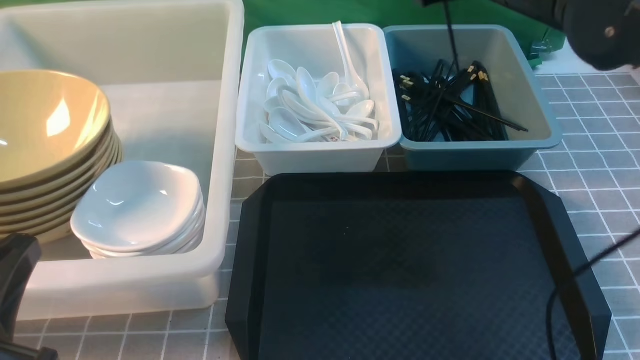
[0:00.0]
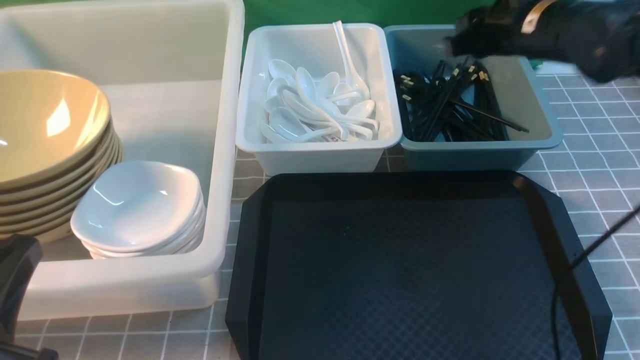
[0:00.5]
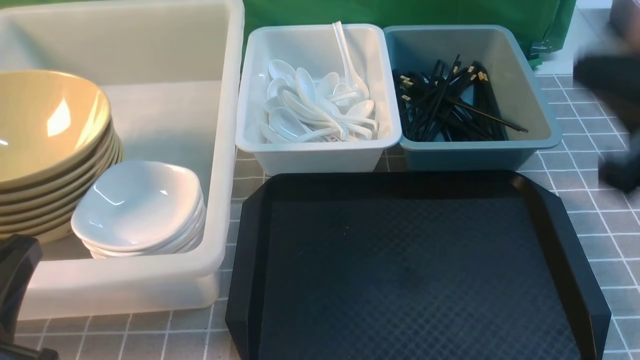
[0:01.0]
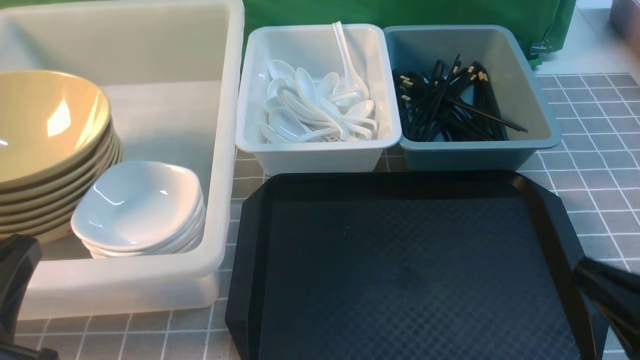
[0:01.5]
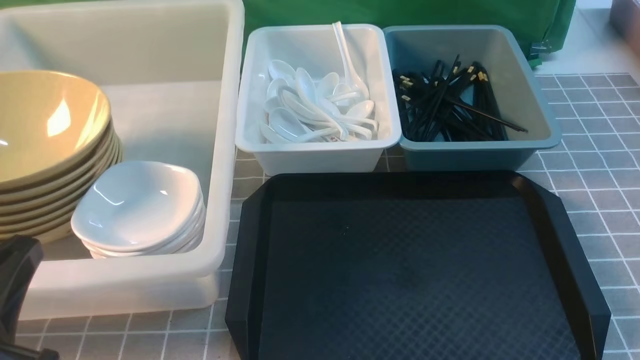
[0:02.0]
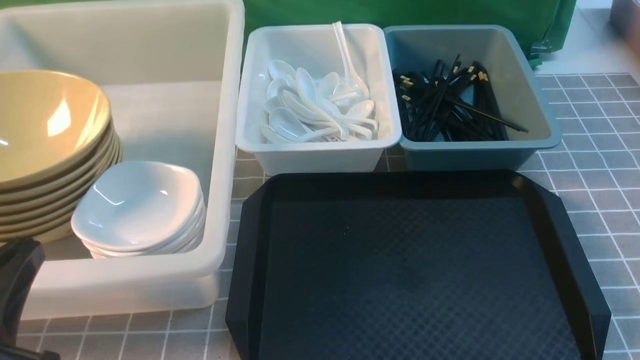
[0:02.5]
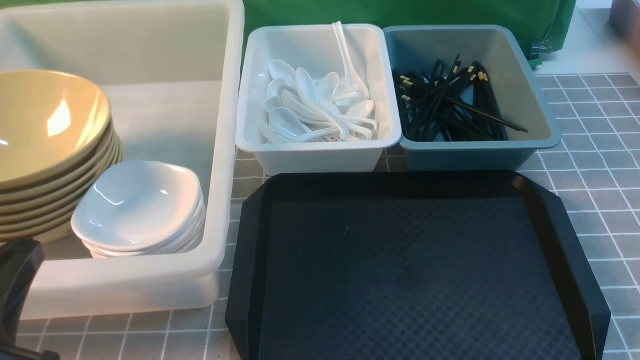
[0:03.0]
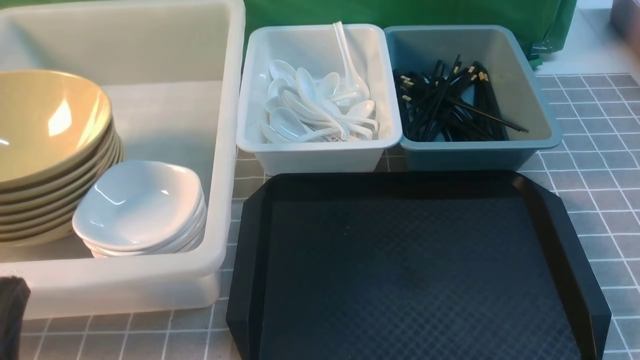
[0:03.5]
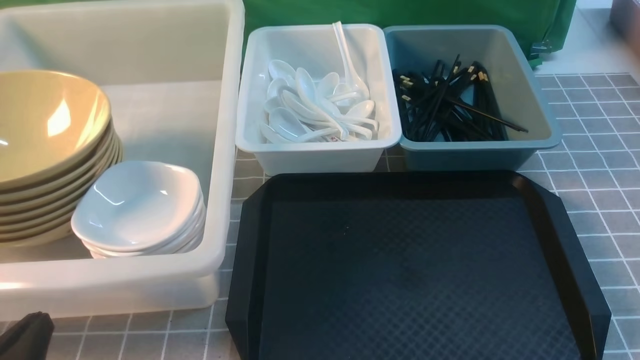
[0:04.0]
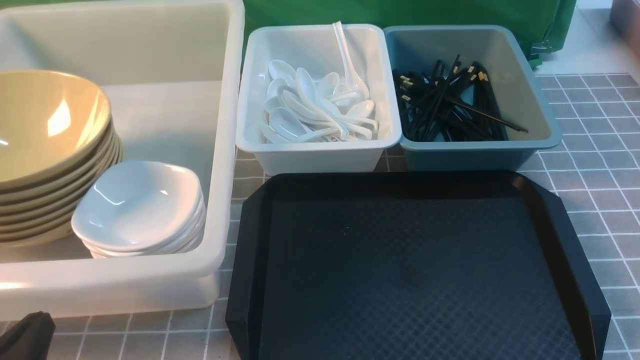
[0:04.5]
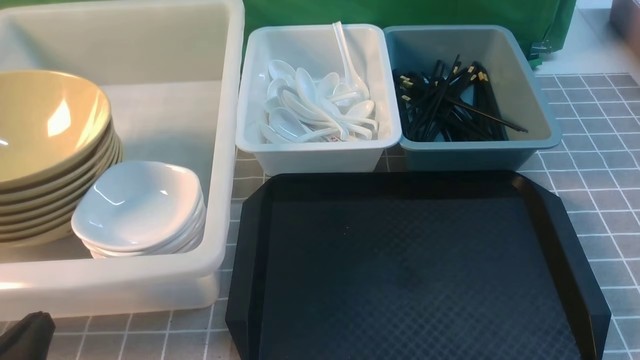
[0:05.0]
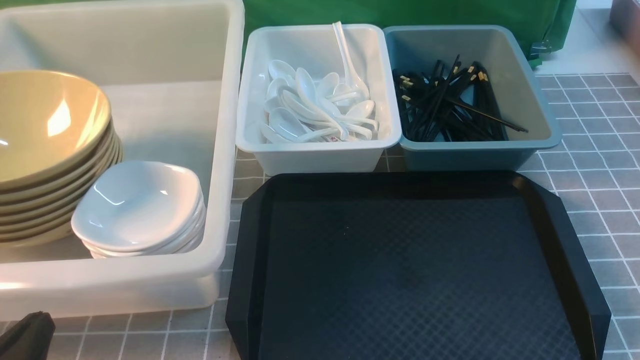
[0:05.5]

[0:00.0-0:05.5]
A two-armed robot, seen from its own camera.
Task of the whole recording: on grey table put chopsticks spoon bowls plates into blue grey white boxes.
Step, 0:00.0 to 0:01.0: use the right arm to put a chopstick into the small storage box on the right.
0:00.0 to 0:02.0: The right gripper shifts about 40 cm backward, downward and to the right.
0:02.0 to 0:03.5: The left gripper shifts roughly 5 cm downward.
0:03.5 to 0:05.5: The grippers move only a little.

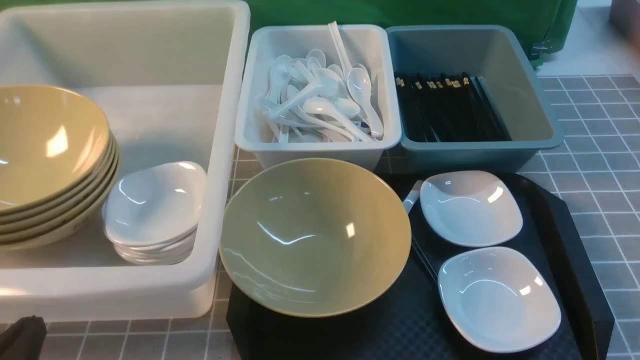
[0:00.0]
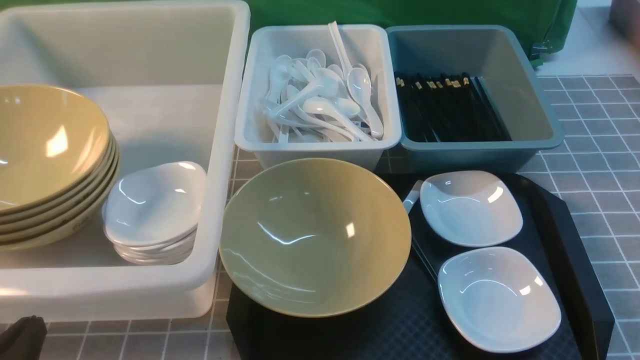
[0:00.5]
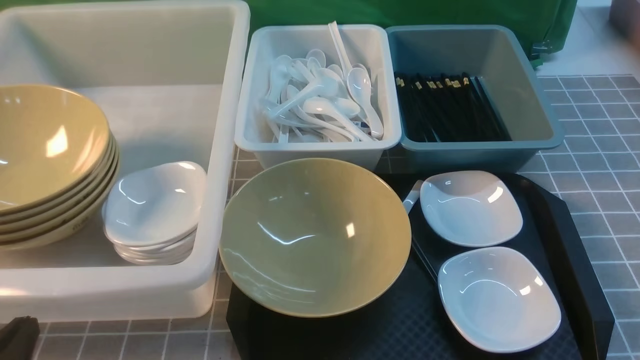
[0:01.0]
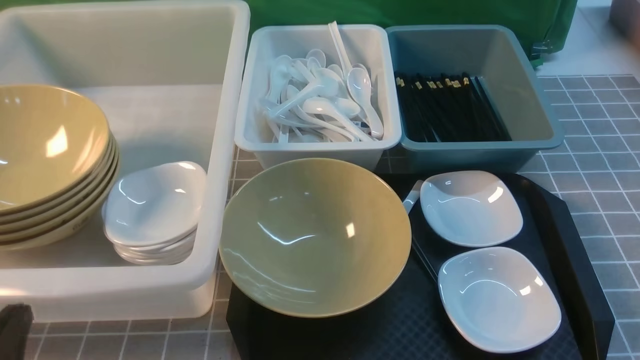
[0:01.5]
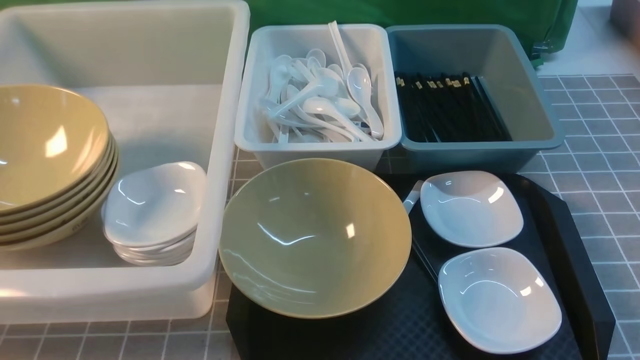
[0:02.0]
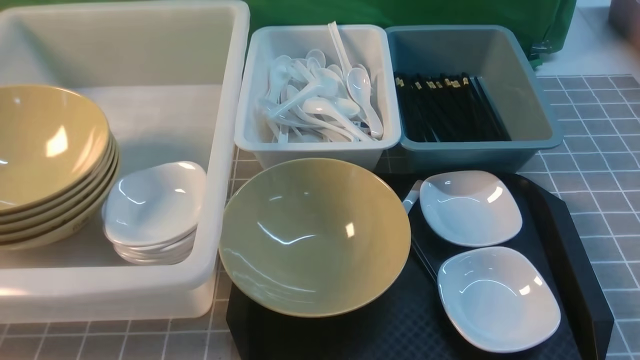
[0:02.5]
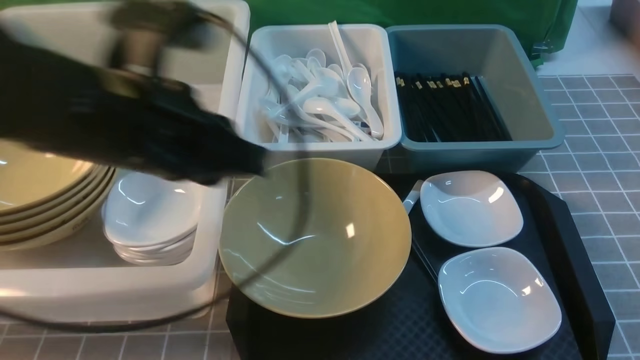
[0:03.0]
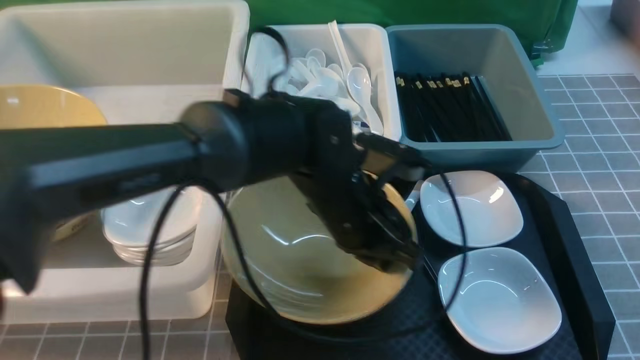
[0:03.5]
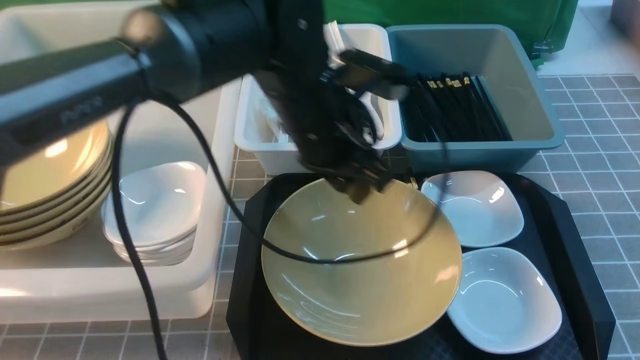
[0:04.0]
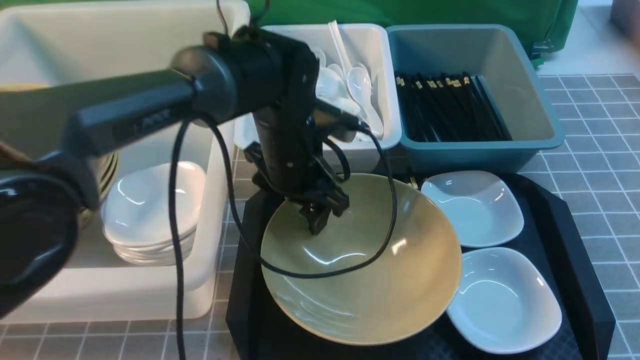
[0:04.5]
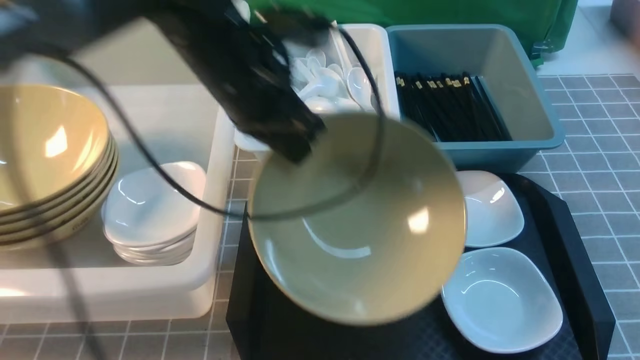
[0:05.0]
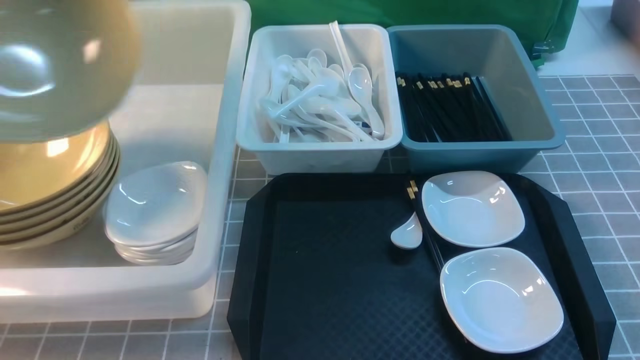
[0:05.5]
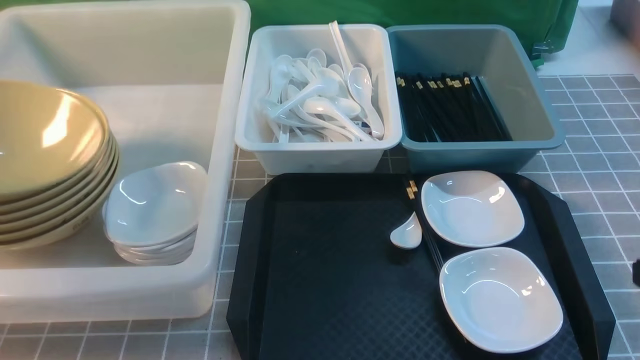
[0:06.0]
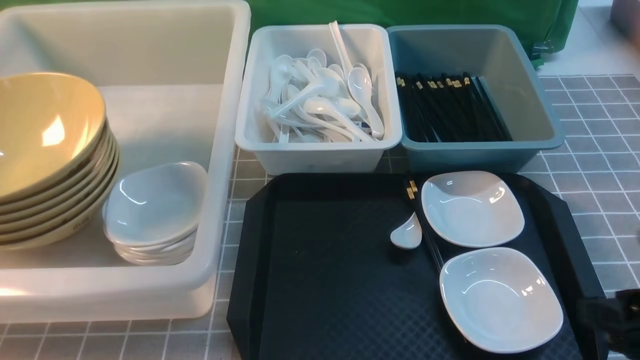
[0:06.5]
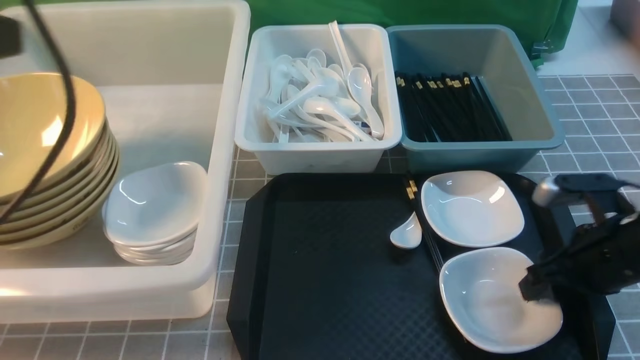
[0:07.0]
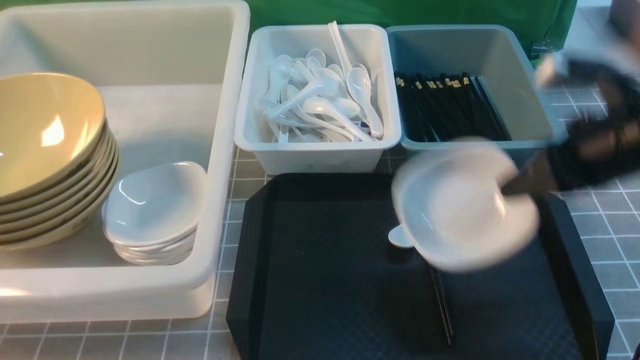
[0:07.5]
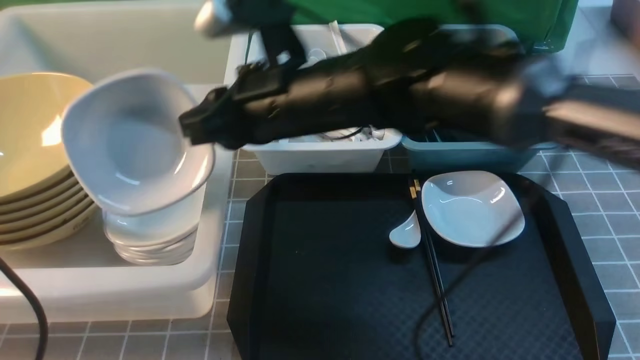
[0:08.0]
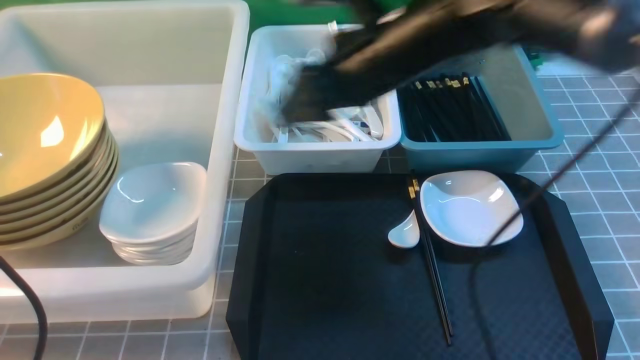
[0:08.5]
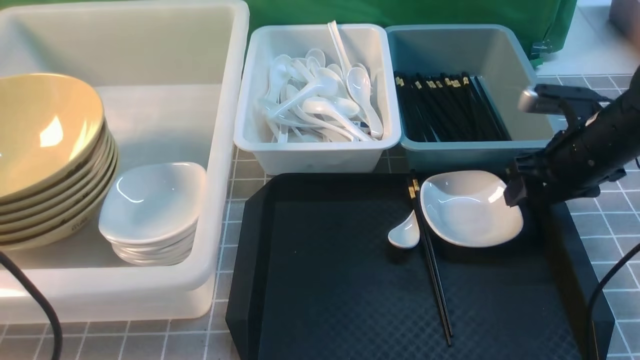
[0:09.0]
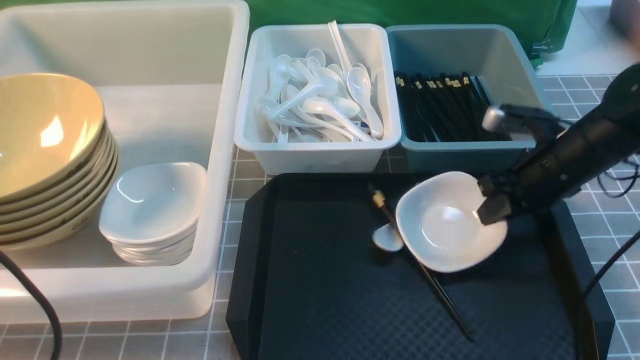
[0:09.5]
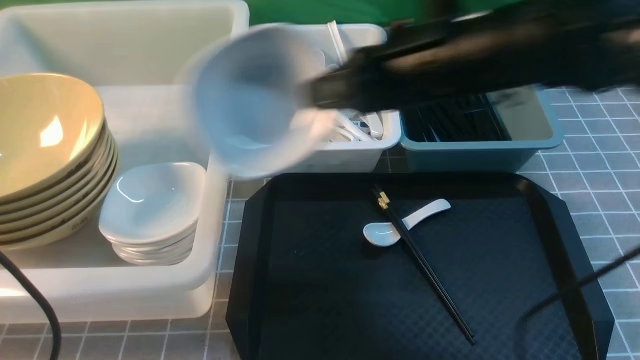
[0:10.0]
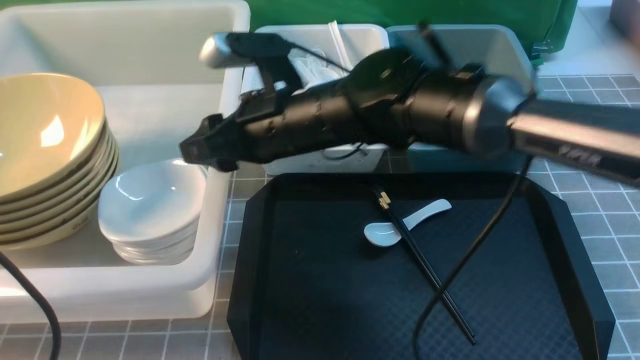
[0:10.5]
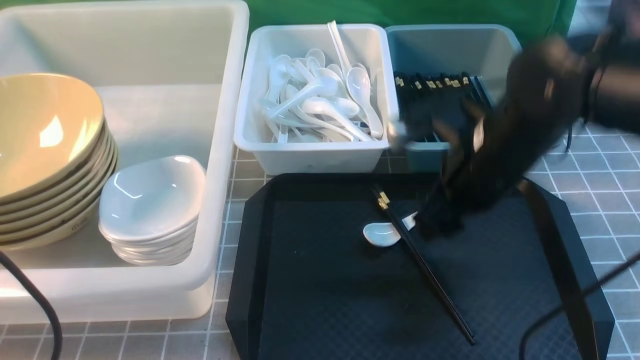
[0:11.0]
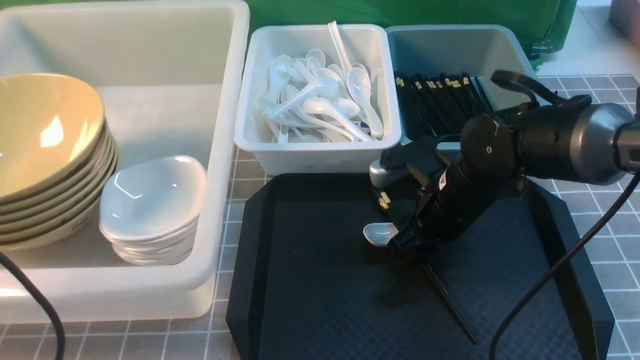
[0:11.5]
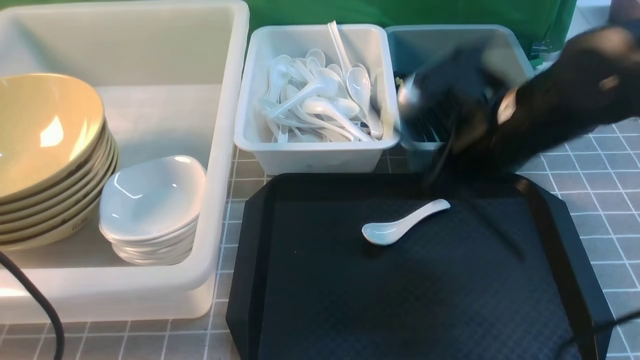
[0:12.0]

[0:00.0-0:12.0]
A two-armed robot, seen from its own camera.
Task of the whole recording: on grey table put chopsticks spoon bowls plates into blue grey white boxes.
Step, 0:00.0 to 0:04.5: use the left arm to grab the yellow noodle bowl on the left.
Step, 0:05.0 to 0:06.0: use the left arm to put the noodle bowl into the large storage box on the left.
Step, 0:06.5 to 0:07.0: use the right arm to grab the plate.
Step, 0:07.5 to 0:08.0: use the right arm to put the plate into the large storage box on the left.
Step, 0:08.5 to 0:09.0: use the right arm to grab the plate.
Step, 0:10.0 to 0:10.5: use the right arm to put the plate into the large storage box on the left.
Step, 0:11.0 to 0:11.5: use the right arm to grab the chopsticks.
0:00.0 to 0:02.0: The left gripper moves upward, about 10 cm.
0:02.0 to 0:04.0: The right gripper moves forward, roughly 10 cm, and moves roughly 10 cm upward and comes back. The left gripper is displaced forward and to the right by approximately 40 cm, and opens.
0:04.0 to 0:06.0: The left gripper moves to the left, about 40 cm, and closes and opens again.
0:06.0 to 0:08.0: The right gripper travels to the left and forward by some 40 cm, and opens and closes again. Meanwhile the left gripper moves backward and to the right, roughly 25 cm, and closes its fingers.
0:08.0 to 0:10.0: The right gripper travels to the right and back again, about 30 cm each way, and opens and closes again.
0:10.0 to 0:12.0: The right gripper travels to the right by about 10 cm, and opens, then closes once more.

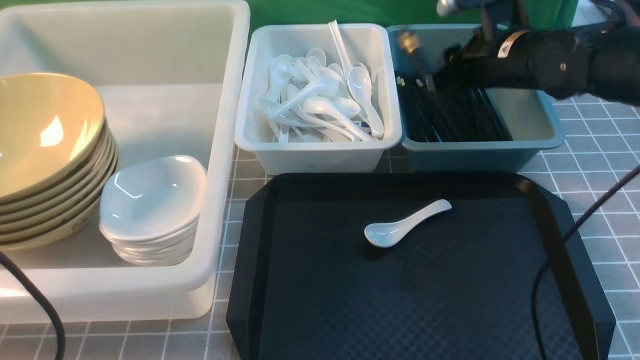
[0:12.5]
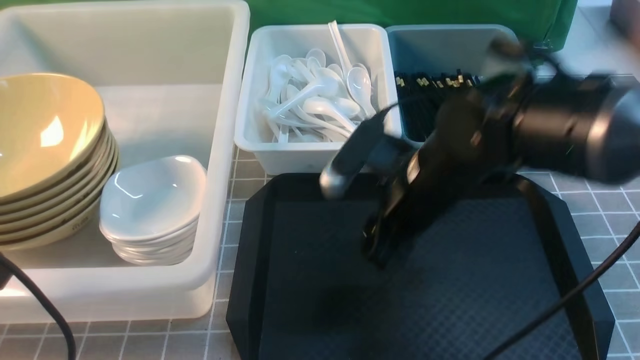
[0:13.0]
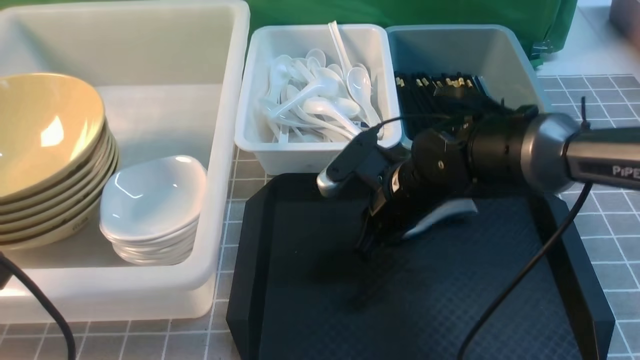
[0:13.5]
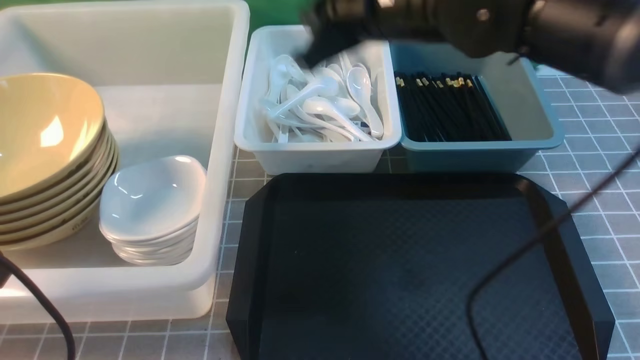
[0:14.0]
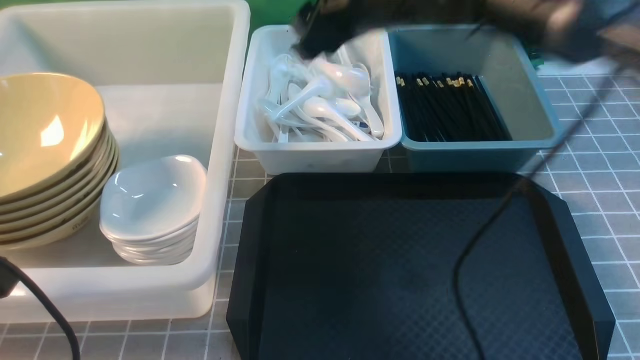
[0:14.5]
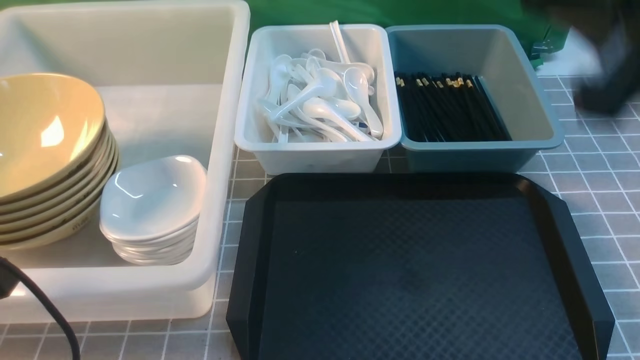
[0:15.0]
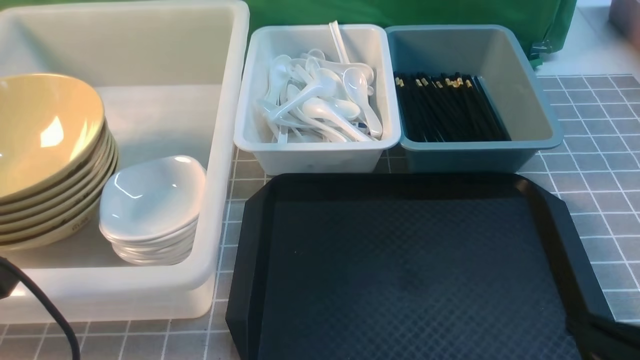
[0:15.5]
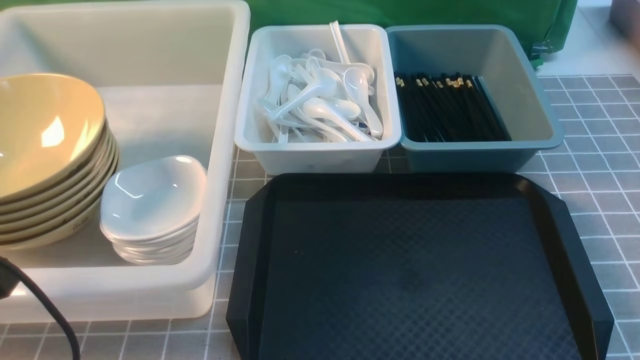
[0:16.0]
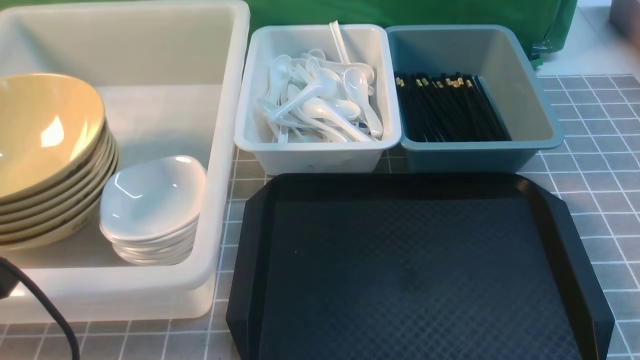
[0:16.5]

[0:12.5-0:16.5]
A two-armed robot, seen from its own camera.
Task of the whole recording: on grey table put chopsticks spoon bowls plates into blue grey white boxes.
Step, 0:13.0 to 0:13.5: use the right arm to grab the soup spoon in the middle.
0:12.5 to 0:14.5: The right gripper is displaced upward and to the left by roughly 15 cm.
0:14.5 to 0:16.5: The right gripper travels backward, to the right and downward by about 50 cm, and closes up.
